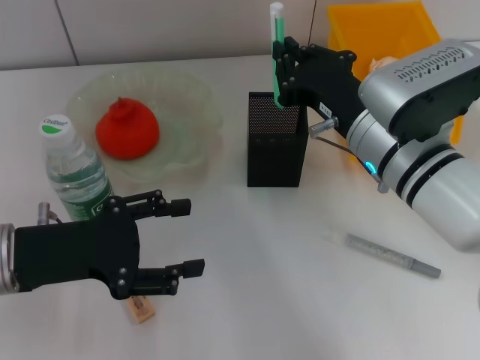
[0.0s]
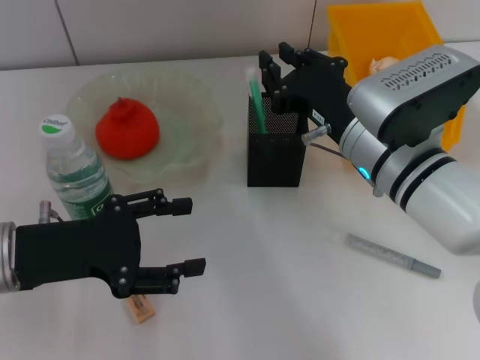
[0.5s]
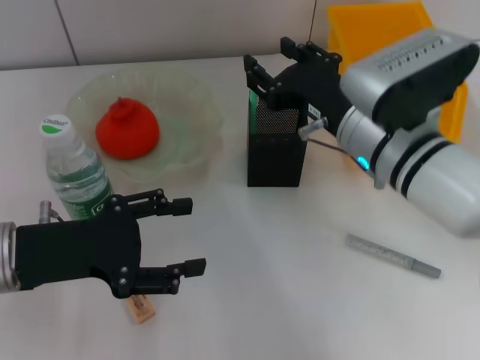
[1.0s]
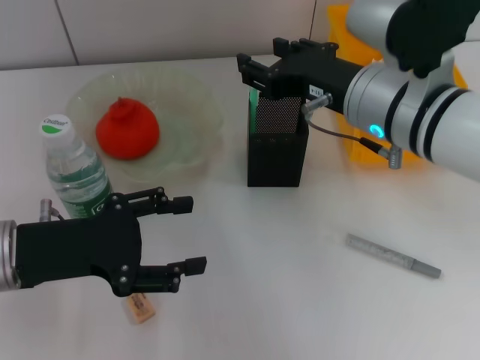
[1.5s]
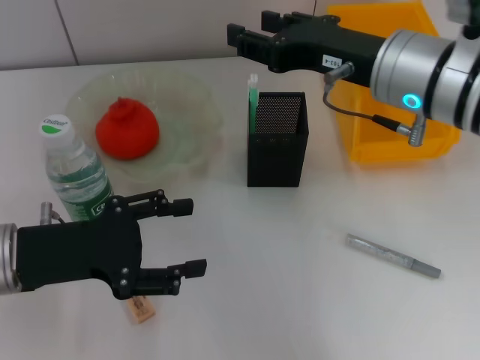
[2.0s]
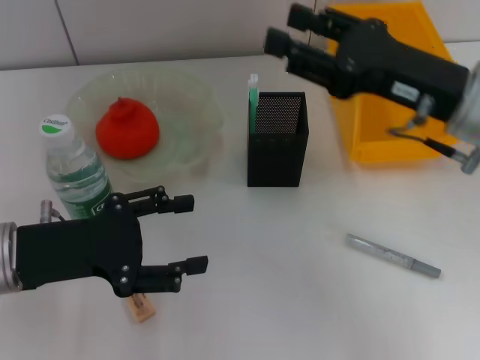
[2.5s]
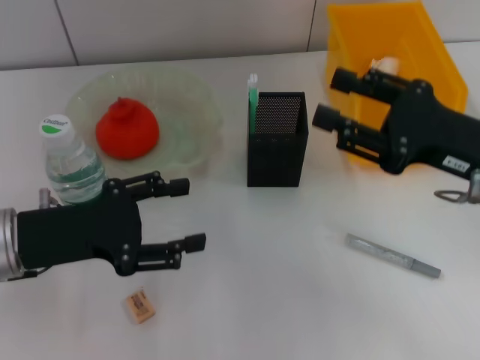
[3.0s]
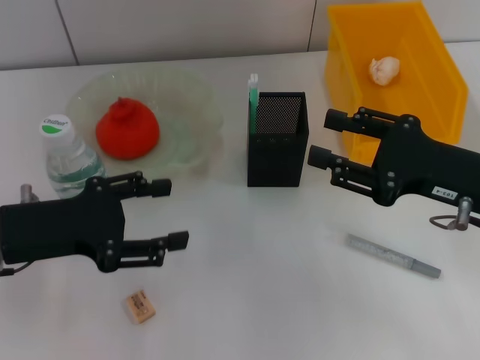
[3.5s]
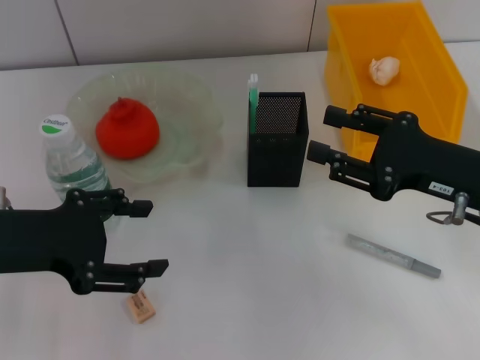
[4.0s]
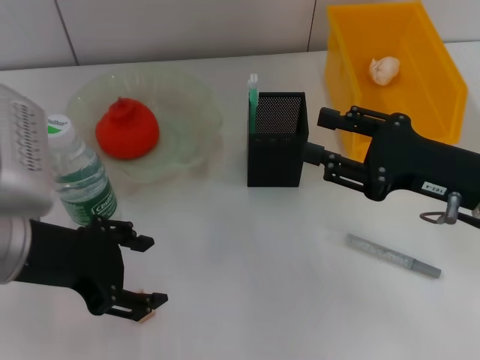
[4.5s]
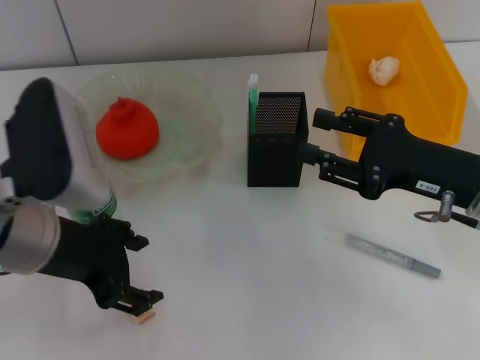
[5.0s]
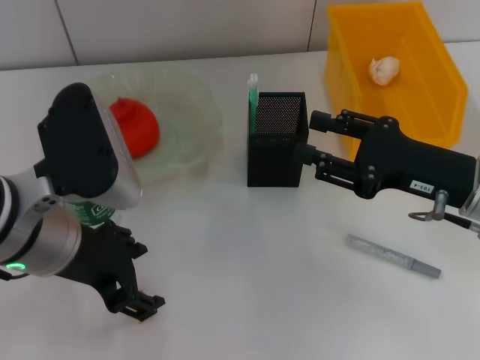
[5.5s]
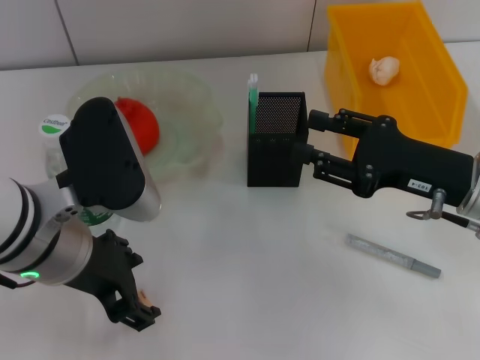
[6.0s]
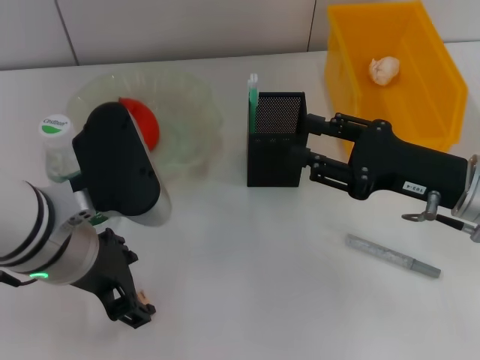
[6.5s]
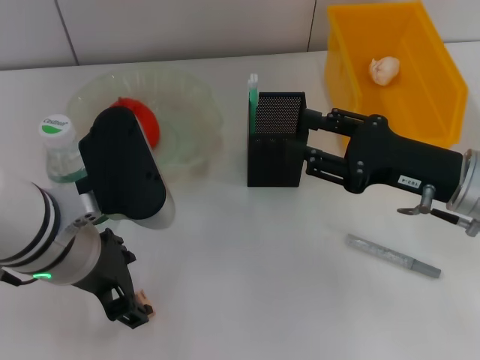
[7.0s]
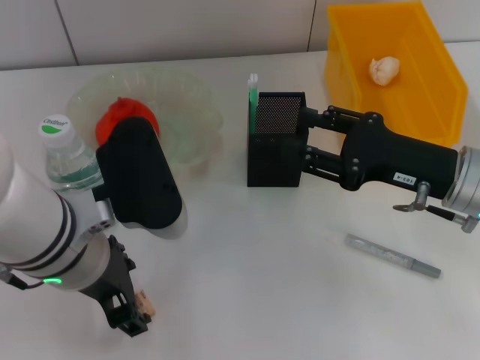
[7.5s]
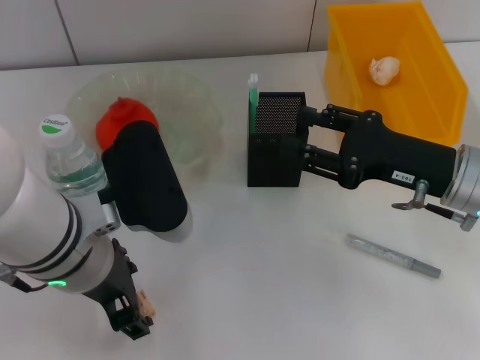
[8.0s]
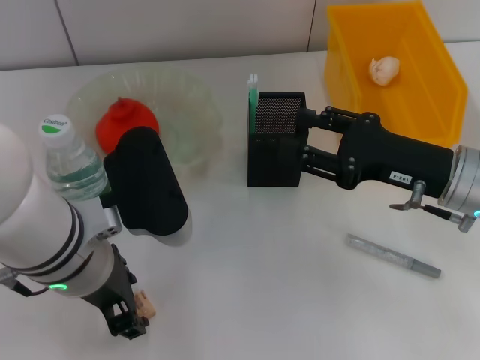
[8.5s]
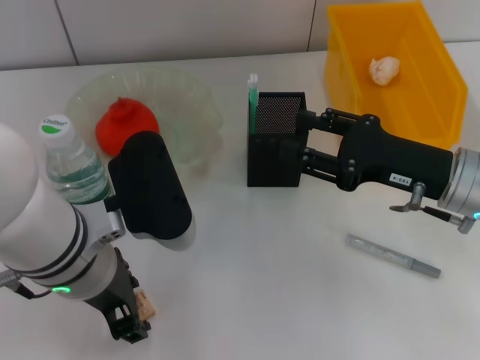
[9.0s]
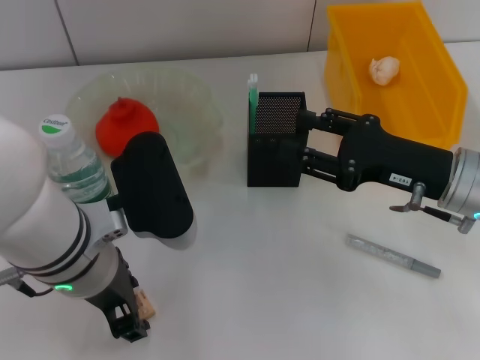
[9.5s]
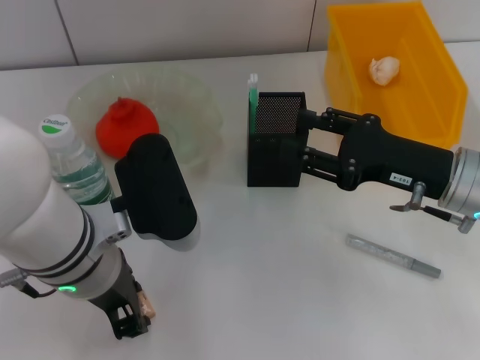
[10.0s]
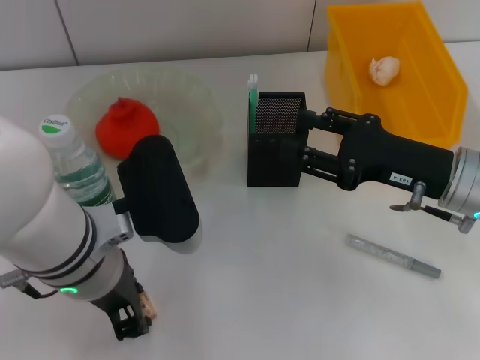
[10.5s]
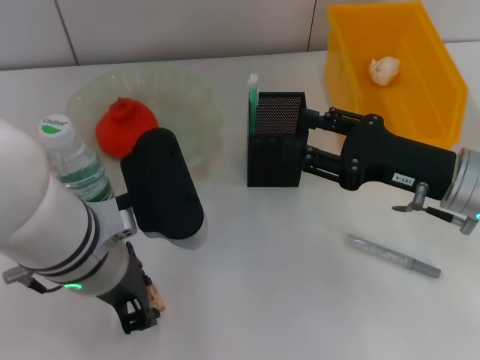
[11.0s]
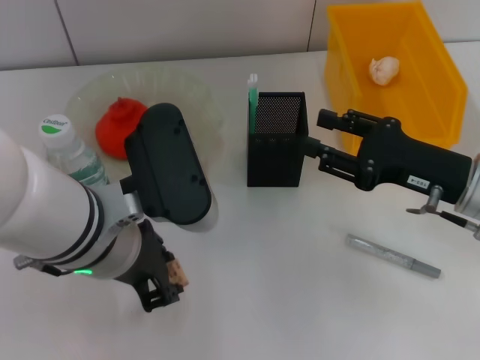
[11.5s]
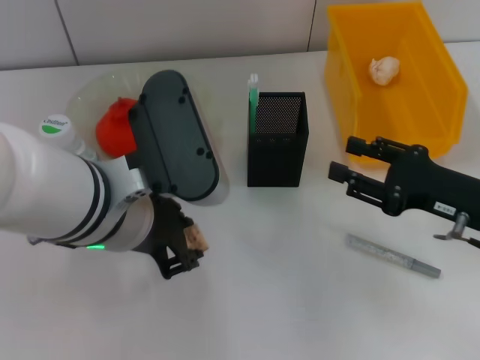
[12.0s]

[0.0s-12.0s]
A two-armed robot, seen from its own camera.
Step, 1.5s to 10.5s: Grab the eraser with the left hand.
0.0s to 2.0s: The right gripper goes roughly 10 cm upward, and opens up.
2.0s to 4.0s: The right gripper heads to the right, downward and backward, covering roughly 15 cm; the left gripper moves upward, approximately 5 cm.
4.0s to 6.0s: The left gripper is displaced to the right by some 10 cm.
6.0s to 8.0s: The grippers make only small movements.
8.0s to 10.0s: The two grippers keep their place.
10.0s to 12.0s: The right gripper changes place by roughly 5 cm; the left gripper closes.

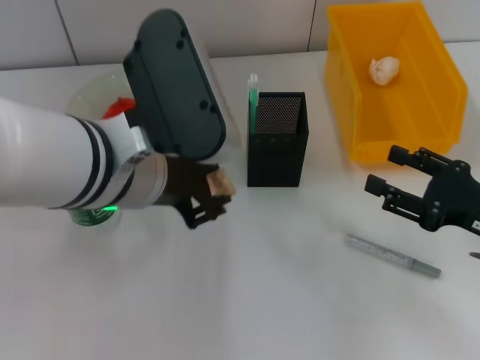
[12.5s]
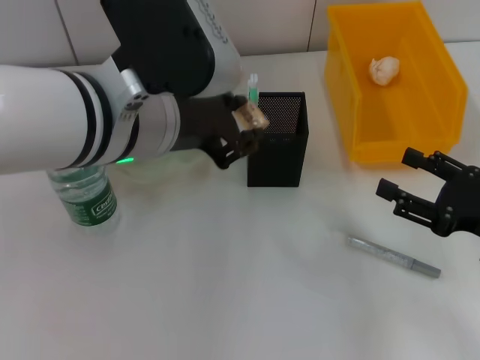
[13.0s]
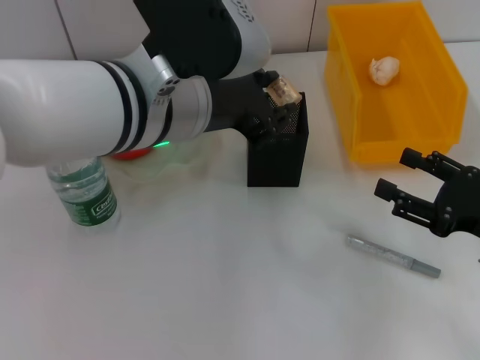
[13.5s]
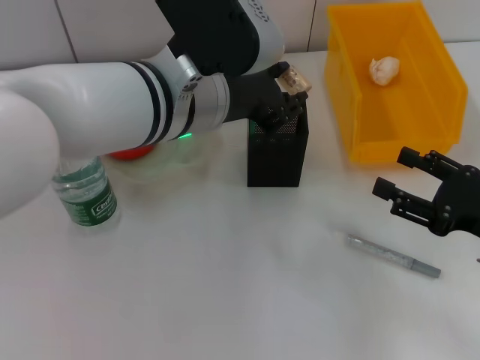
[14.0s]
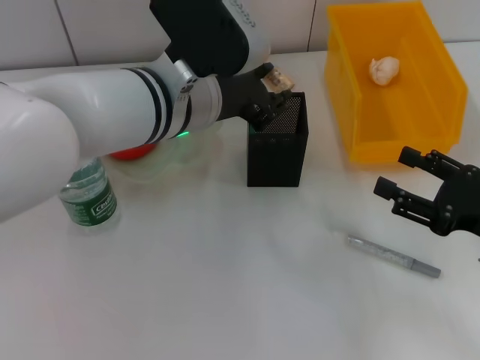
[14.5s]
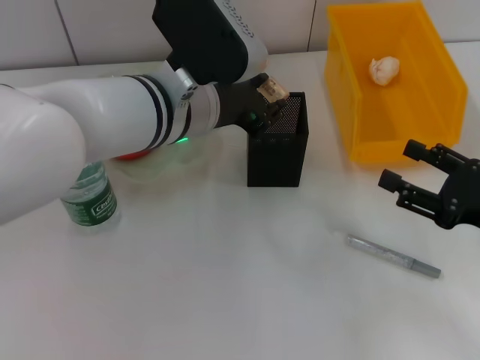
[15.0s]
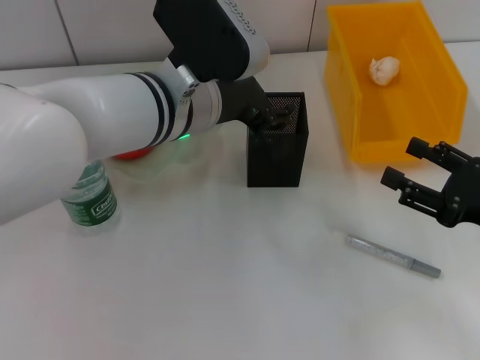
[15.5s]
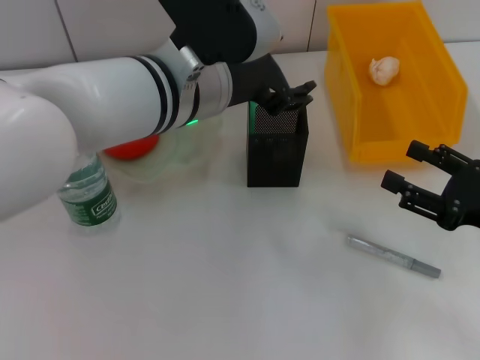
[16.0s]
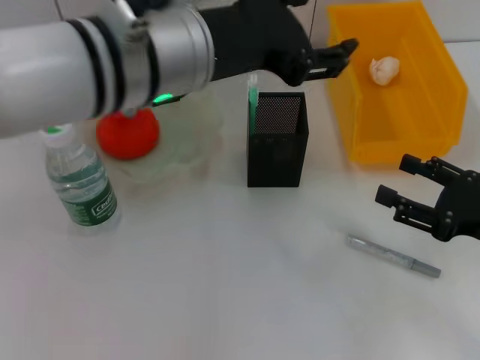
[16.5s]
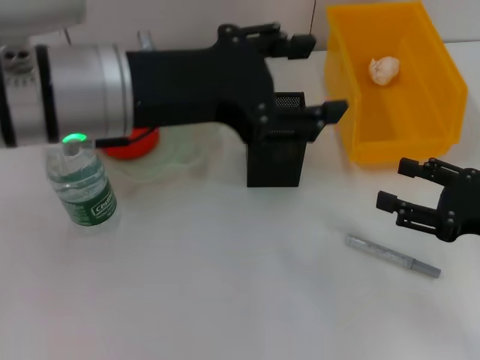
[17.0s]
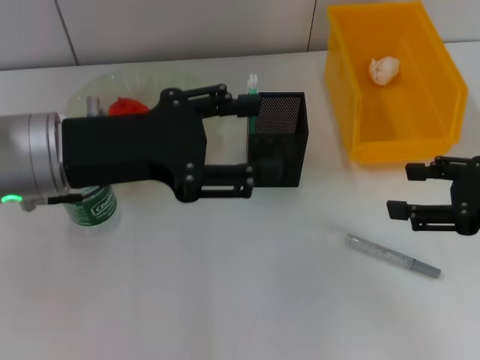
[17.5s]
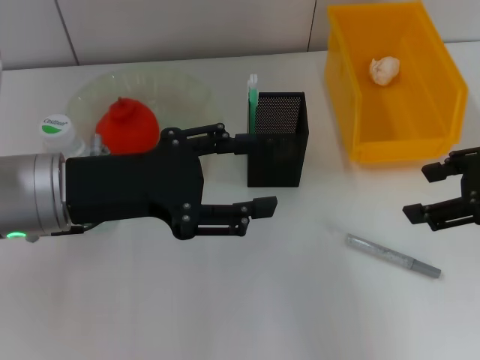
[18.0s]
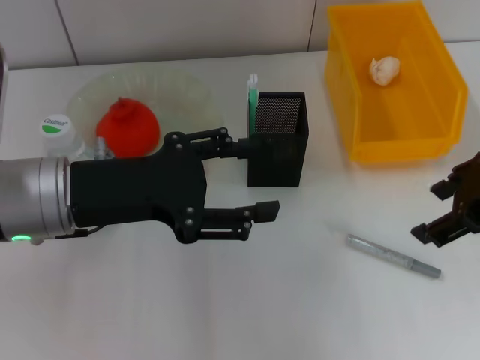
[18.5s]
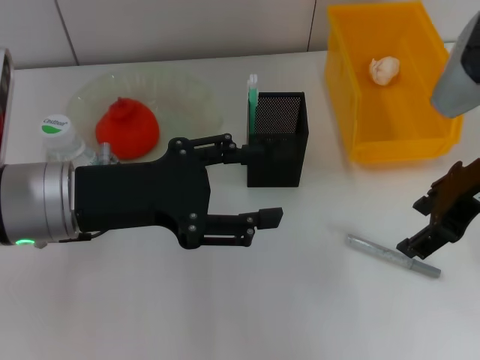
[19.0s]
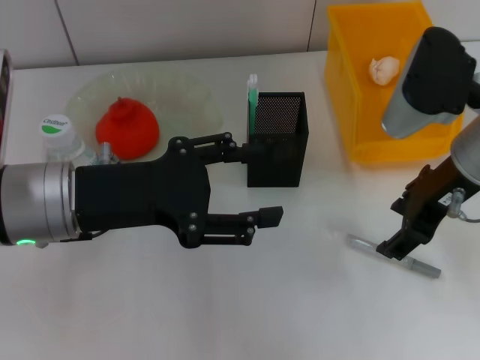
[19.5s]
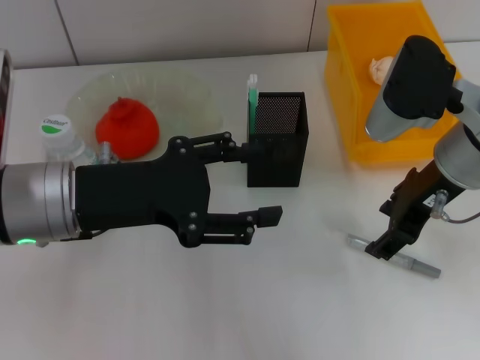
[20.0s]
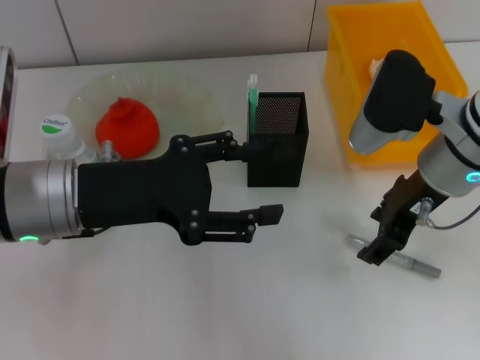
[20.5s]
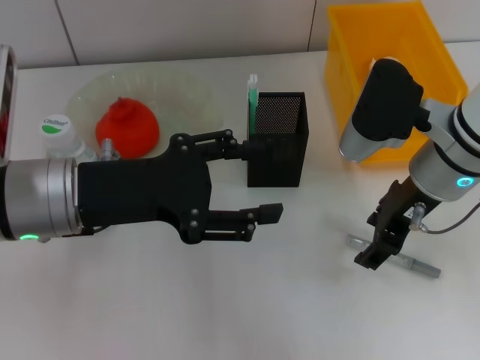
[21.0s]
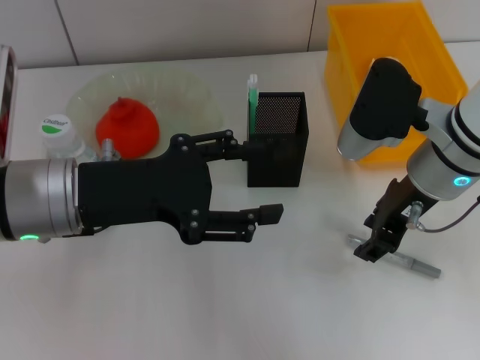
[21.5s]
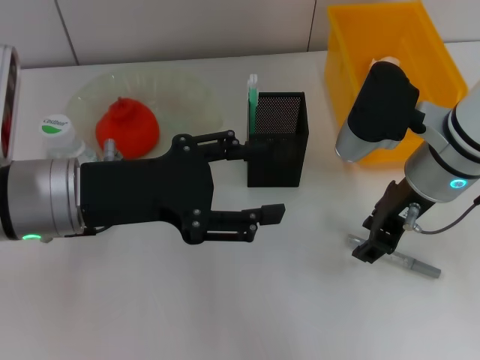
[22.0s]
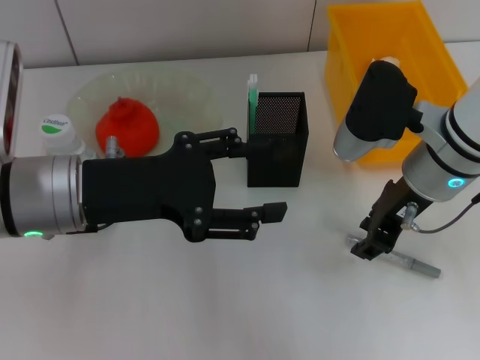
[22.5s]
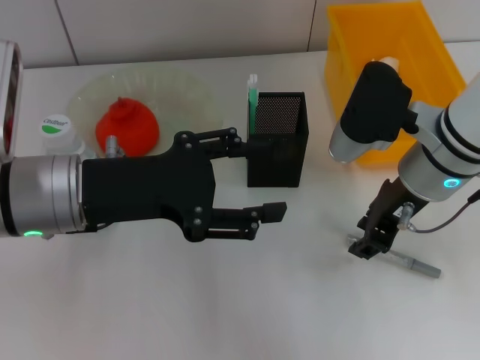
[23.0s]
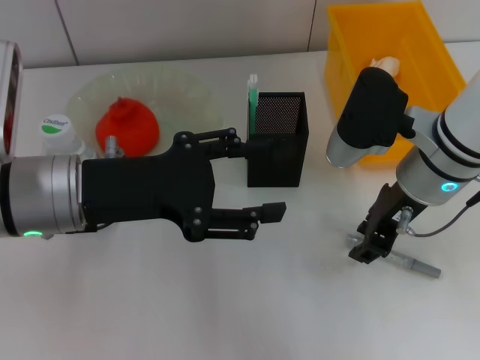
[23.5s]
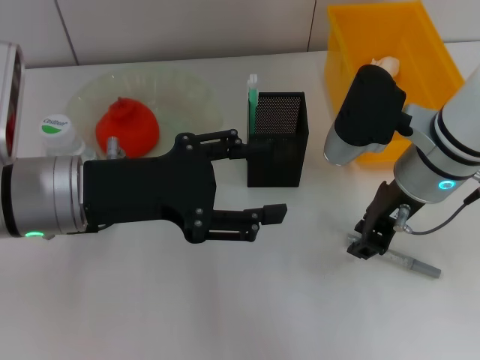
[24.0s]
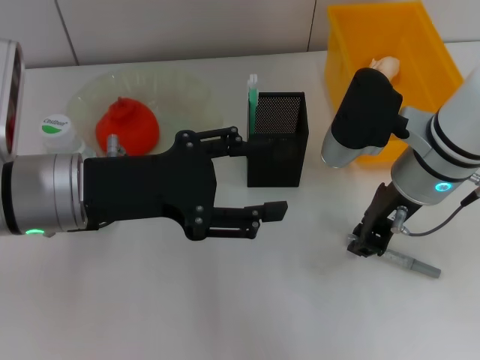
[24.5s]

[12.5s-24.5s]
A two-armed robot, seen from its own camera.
Step, 12.5s to 15.5s: Place the eraser into the pen holder with the left hand.
12.5s to 14.5s: The left gripper moves forward, roughly 5 cm.
14.5s to 16.5s: The left gripper heads upward, covering approximately 5 cm, and opens its fingers.
16.5s to 18.5s: The right gripper travels upward by some 15 cm; the left gripper travels to the left and downward by approximately 15 cm.
18.5s to 20.5s: The right gripper is displaced downward and to the left by some 10 cm.
20.5s to 22.5s: The right gripper closes its fingers.
22.5s to 24.5s: The two grippers keep their place.

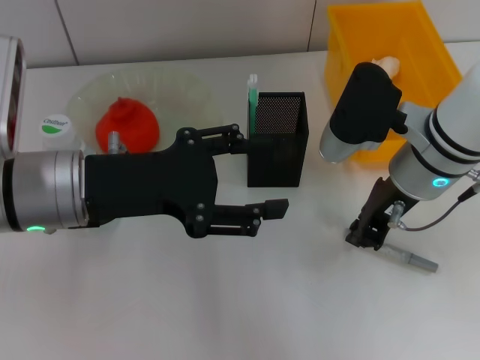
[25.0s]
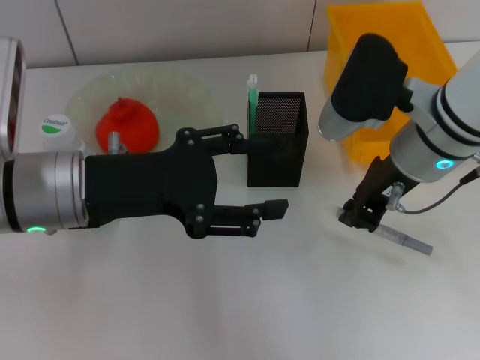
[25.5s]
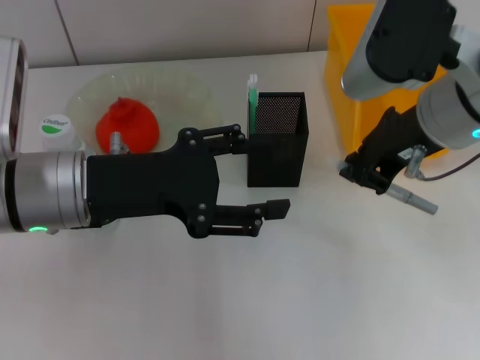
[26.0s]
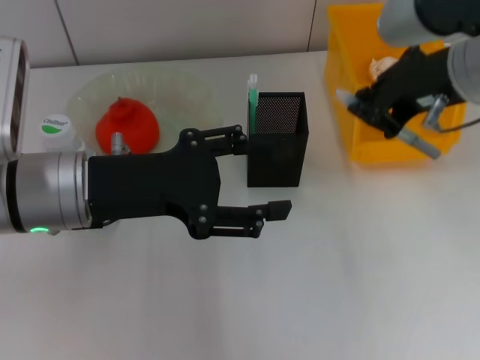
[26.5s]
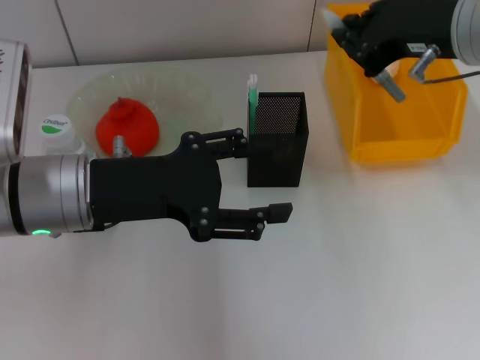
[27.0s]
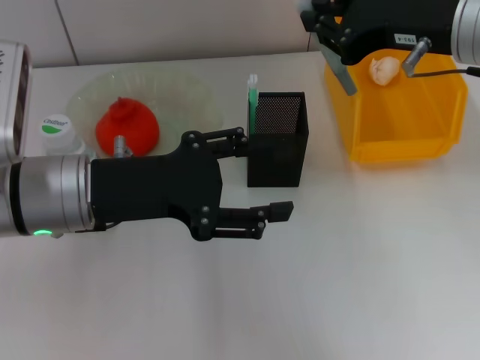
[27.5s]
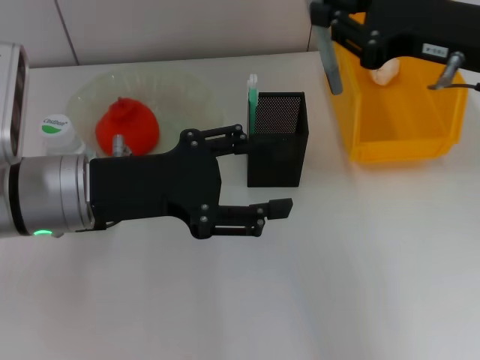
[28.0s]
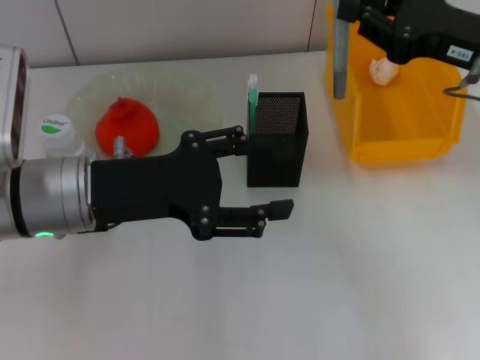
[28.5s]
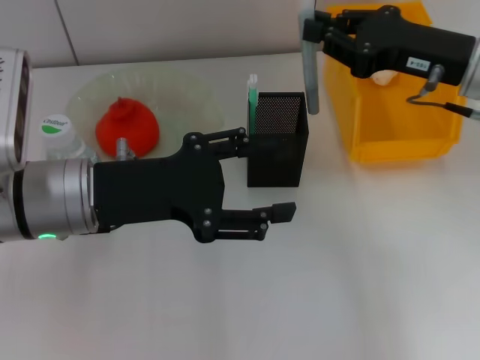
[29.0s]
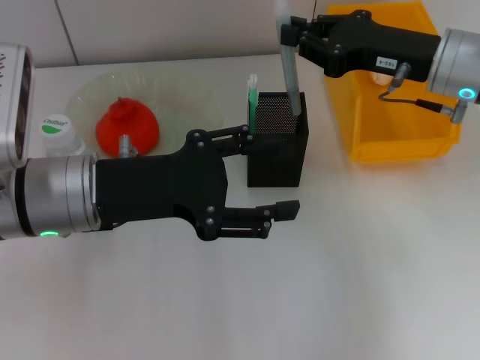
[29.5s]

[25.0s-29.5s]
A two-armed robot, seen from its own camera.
25.0s to 27.0s: The right gripper travels upward by some 10 cm.
27.0s to 29.5s: The right gripper moves downward and forward, roughly 10 cm.
